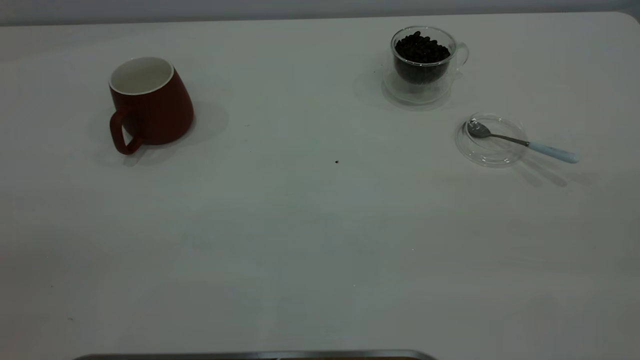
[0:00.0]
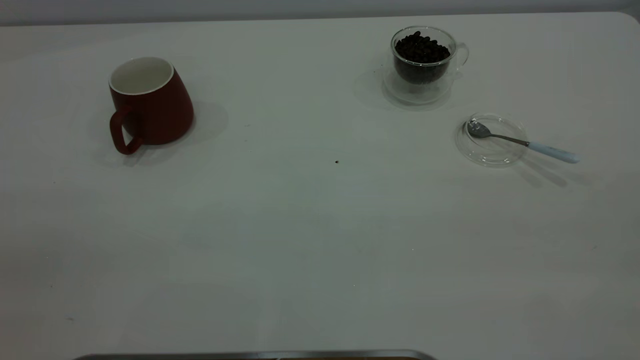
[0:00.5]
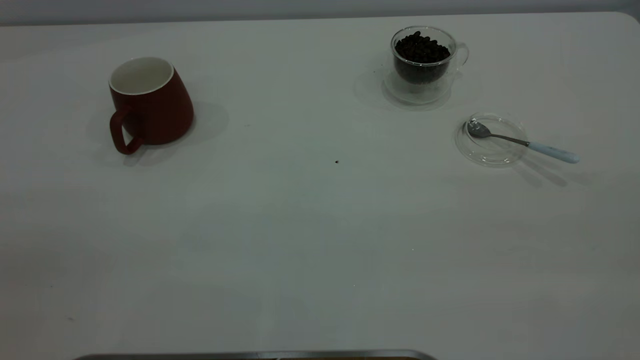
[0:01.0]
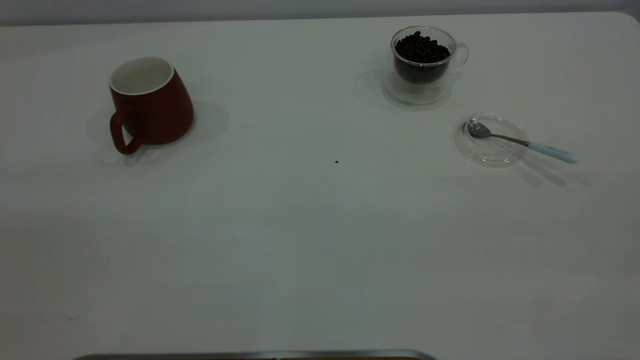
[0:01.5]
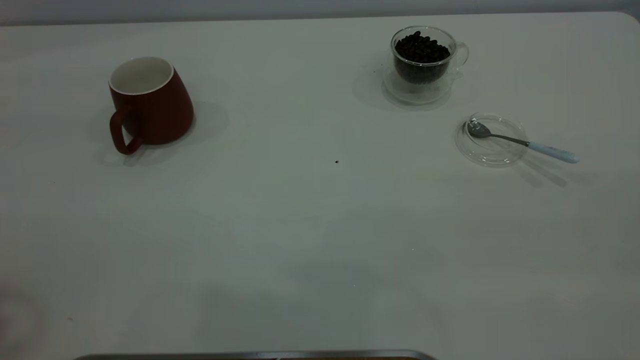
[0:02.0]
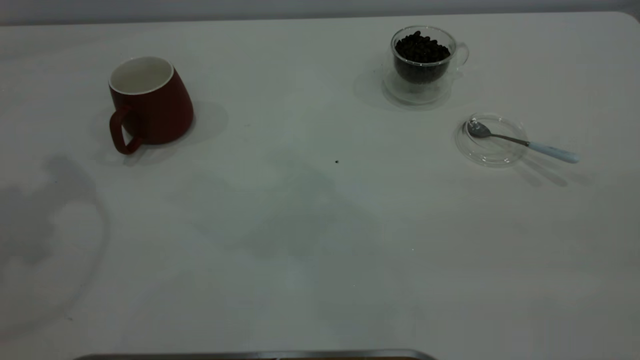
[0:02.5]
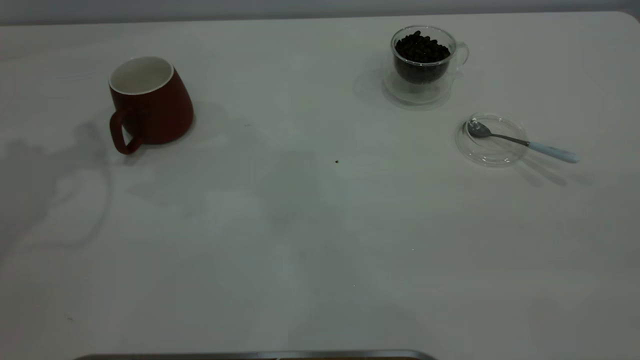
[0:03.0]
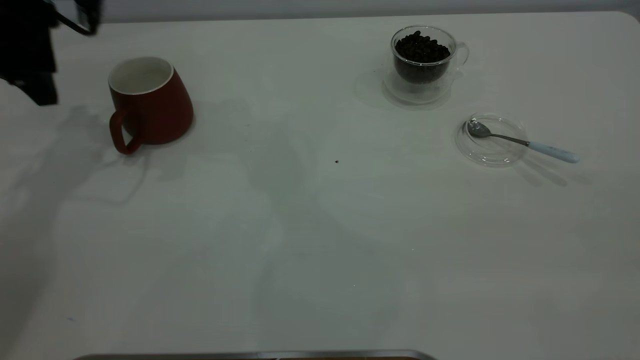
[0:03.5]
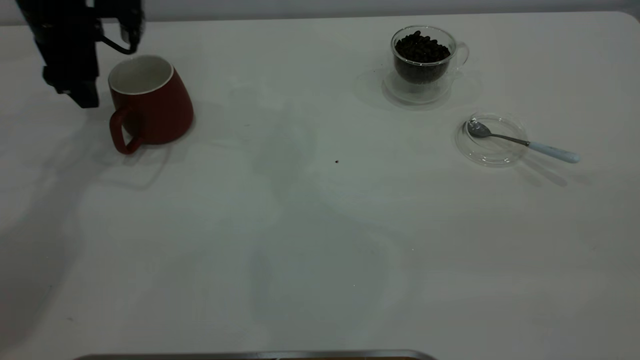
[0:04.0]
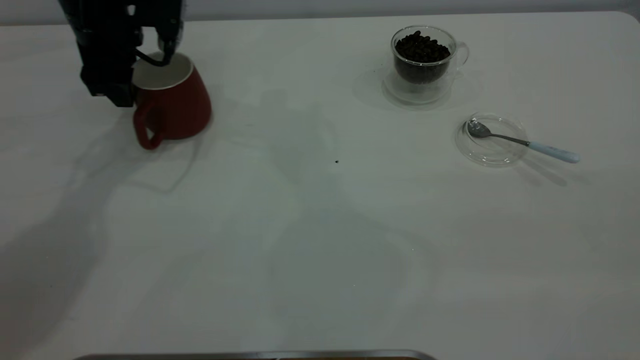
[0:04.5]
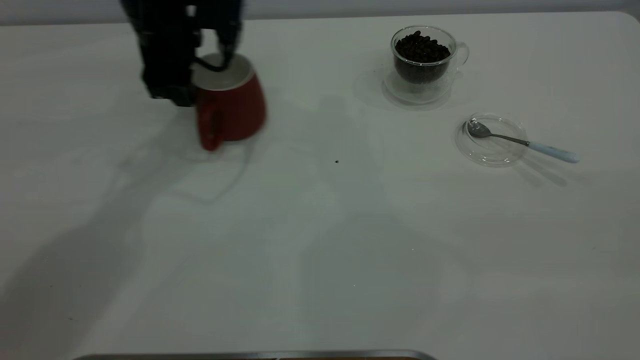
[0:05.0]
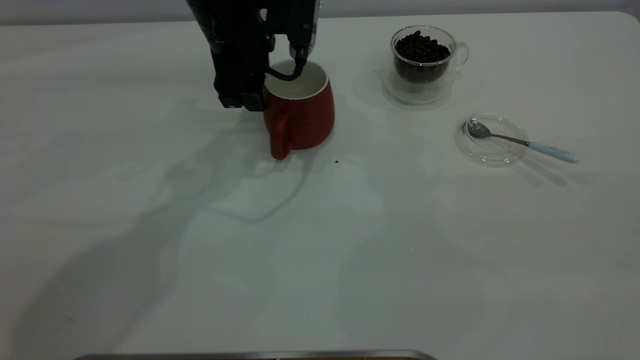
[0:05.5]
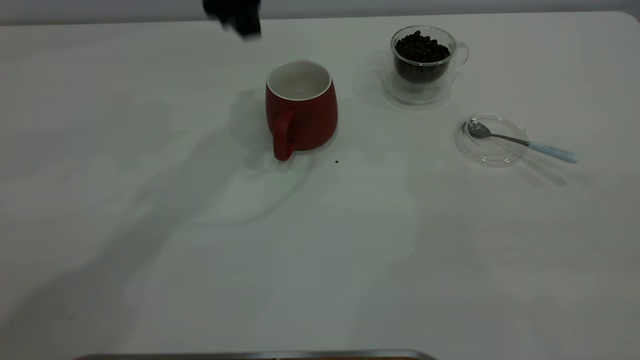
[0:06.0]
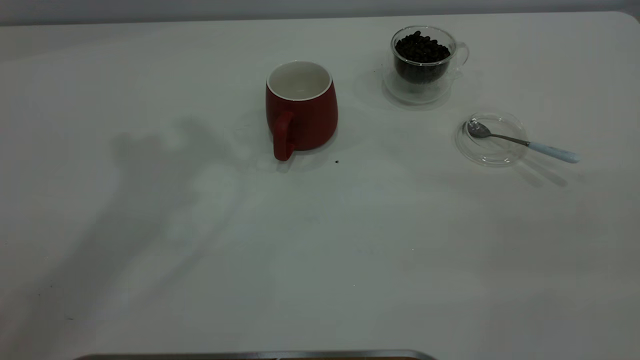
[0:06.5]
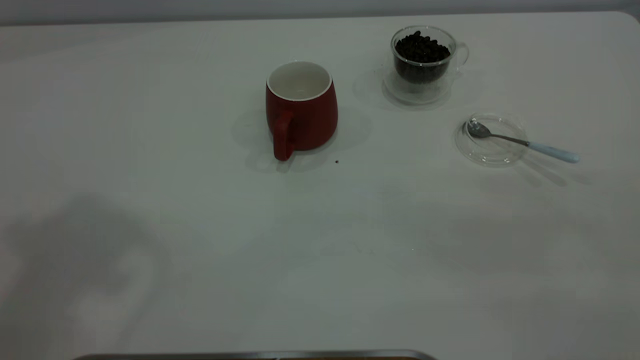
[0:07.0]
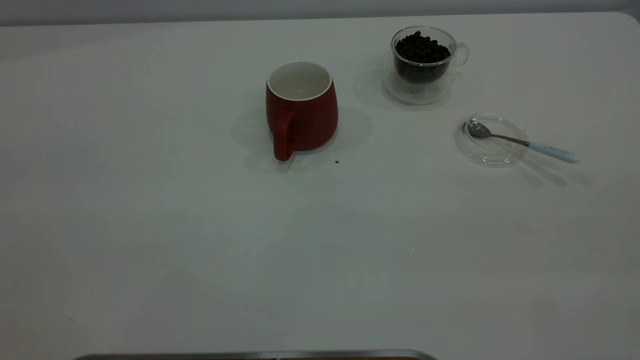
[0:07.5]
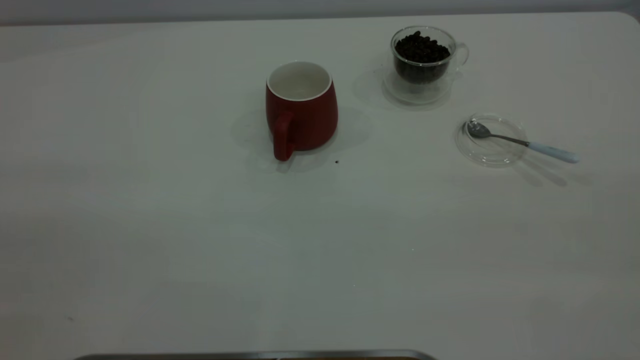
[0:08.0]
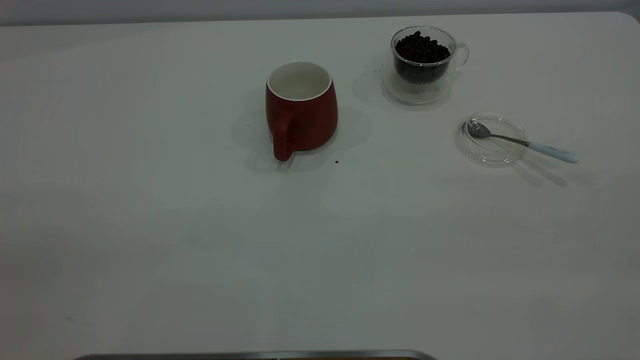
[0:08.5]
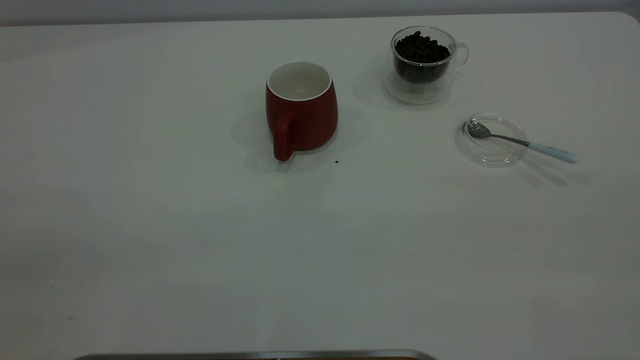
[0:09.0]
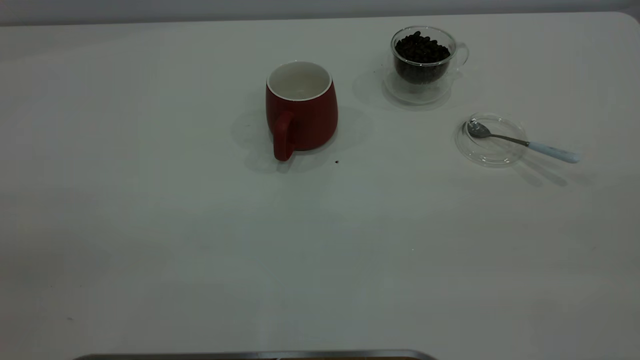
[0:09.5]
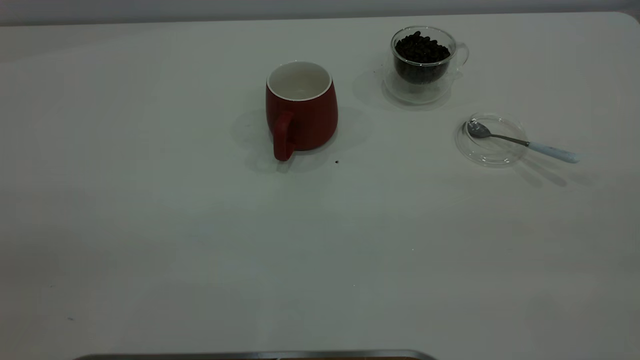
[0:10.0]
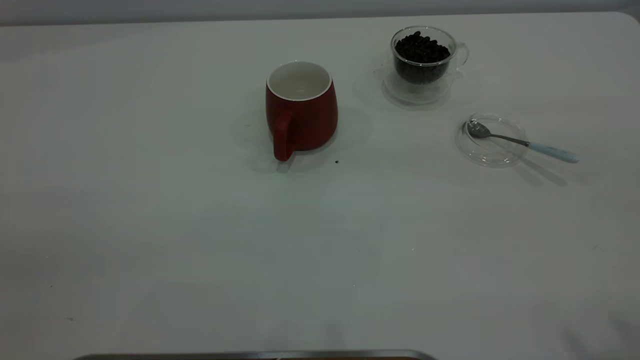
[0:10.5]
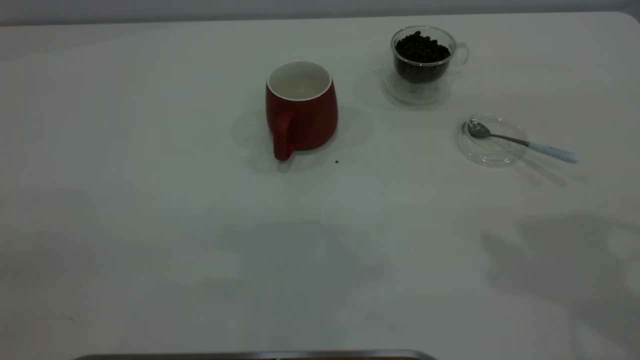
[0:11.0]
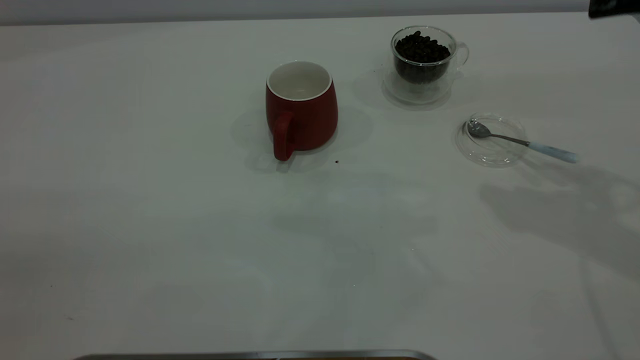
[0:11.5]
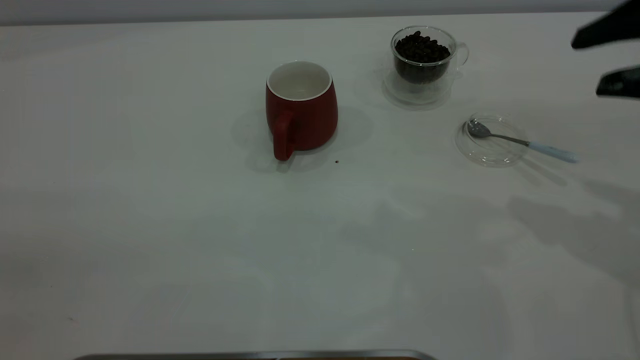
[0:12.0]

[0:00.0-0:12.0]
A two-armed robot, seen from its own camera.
Task of the whole recording: the left gripper place the red cup in the center of the table, the right gripper take the blue spoon from the cup lid and scoop out the coffee beans from the coffee cup and put them into the red cup, the right gripper put the spoon back into the cup lid.
Step, 0:00.0 to 0:05.5: Move the cup to the center of view.
0:02.0 to 0:04.0: The left gripper goes about 40 cm forward and downward.
0:04.0 to 0:06.0: The left gripper shifts some 20 cm to the right and upward.
0:06.0 to 0:08.0: The left gripper is displaced backward and to the left by about 50 cm.
0:10.0 to 0:12.0: The right gripper is displaced forward and downward by approximately 30 cm.

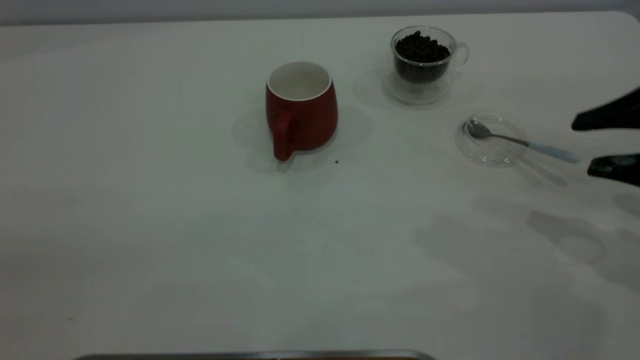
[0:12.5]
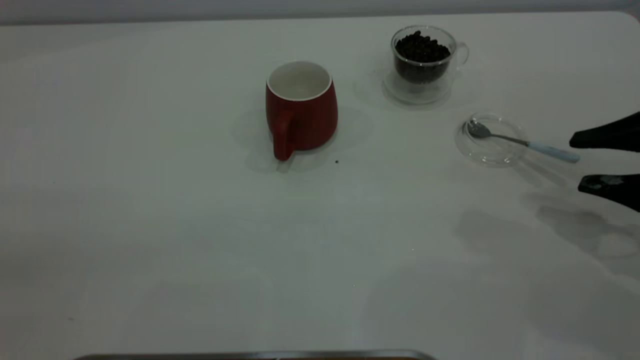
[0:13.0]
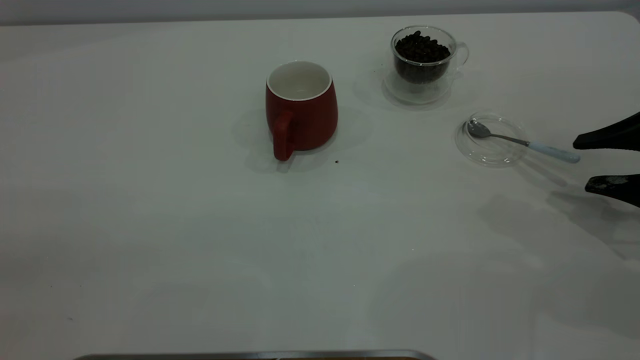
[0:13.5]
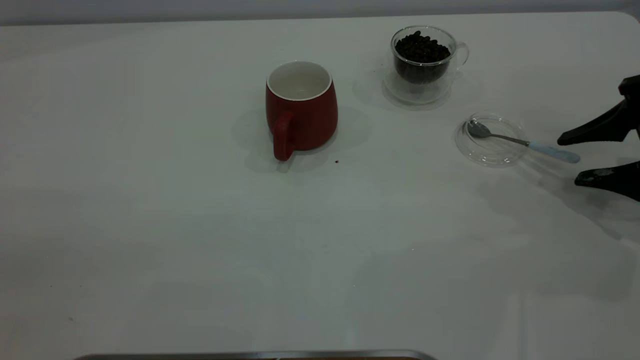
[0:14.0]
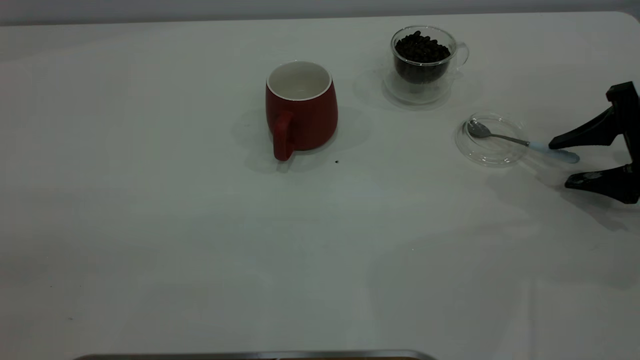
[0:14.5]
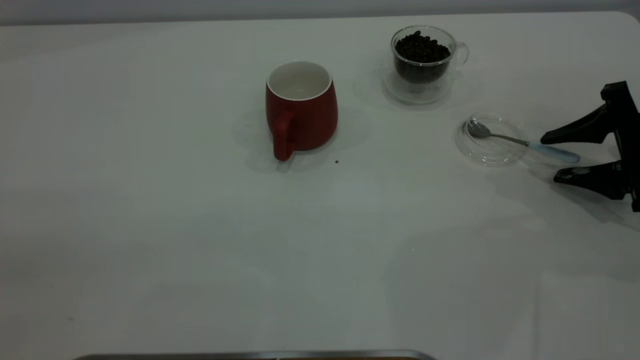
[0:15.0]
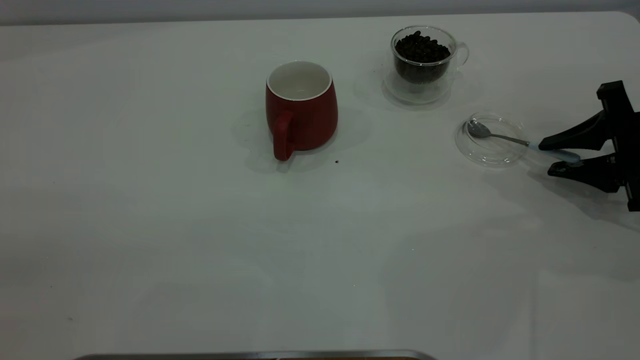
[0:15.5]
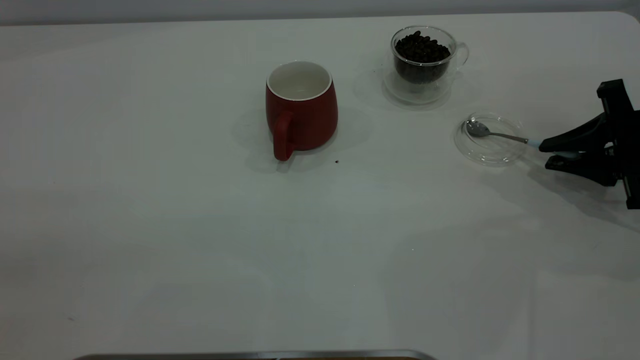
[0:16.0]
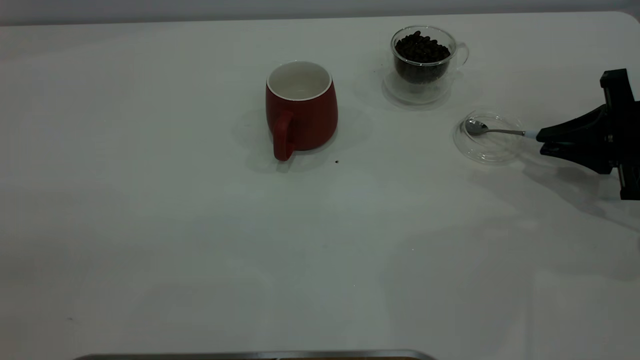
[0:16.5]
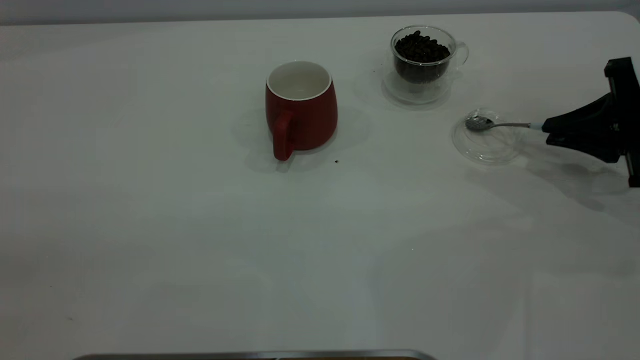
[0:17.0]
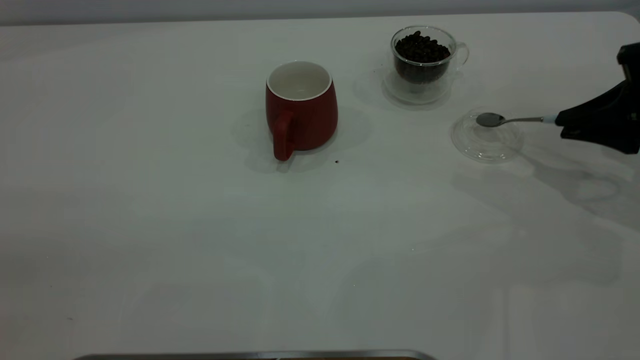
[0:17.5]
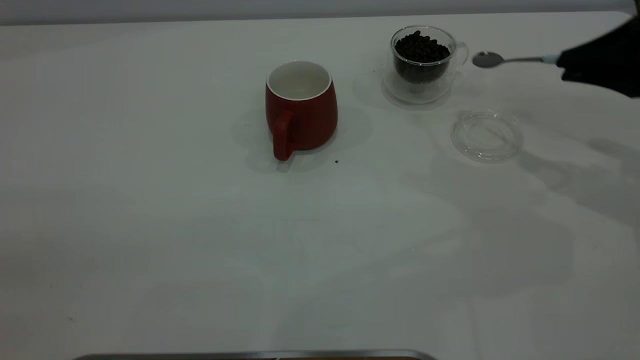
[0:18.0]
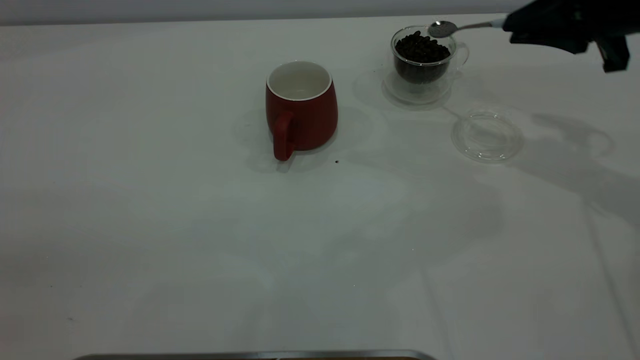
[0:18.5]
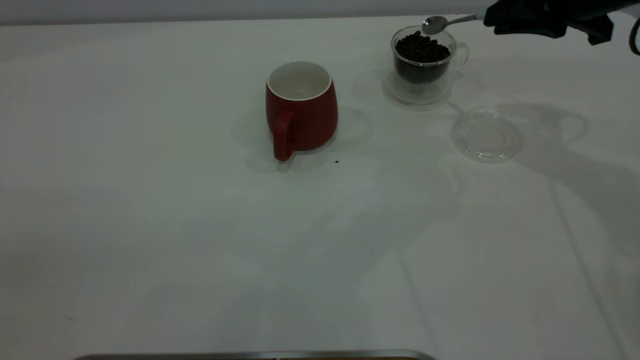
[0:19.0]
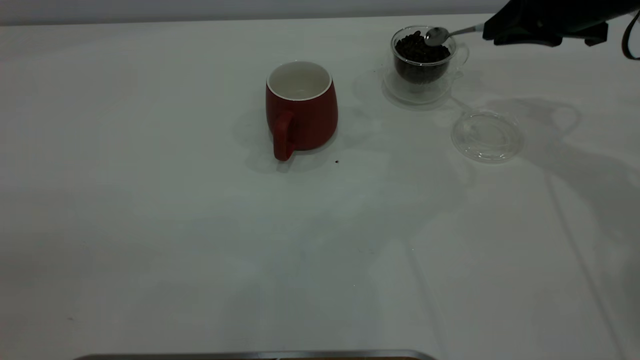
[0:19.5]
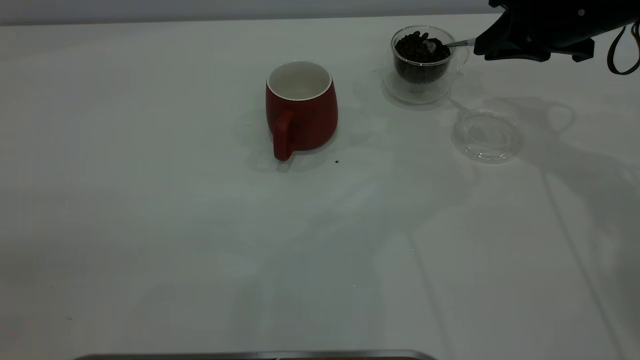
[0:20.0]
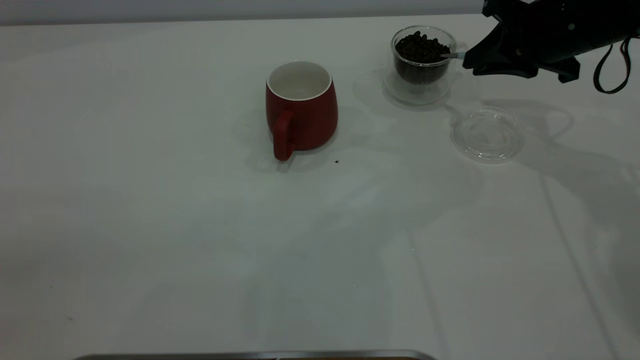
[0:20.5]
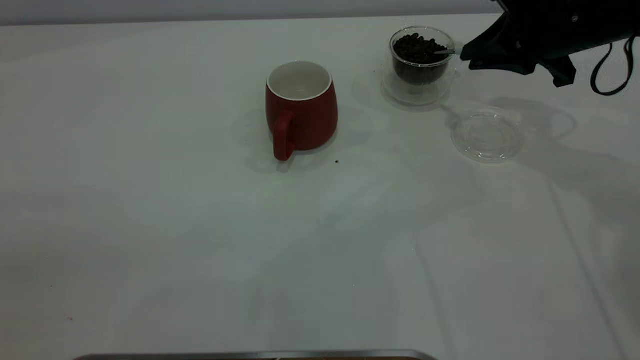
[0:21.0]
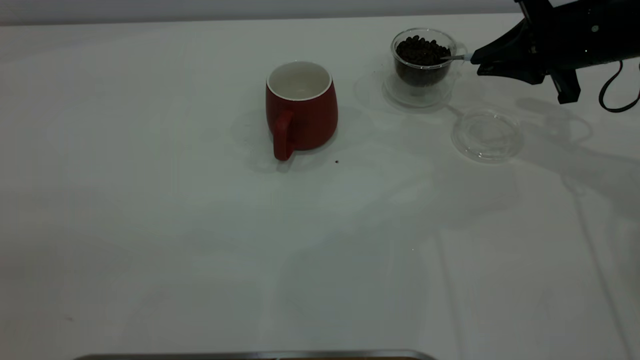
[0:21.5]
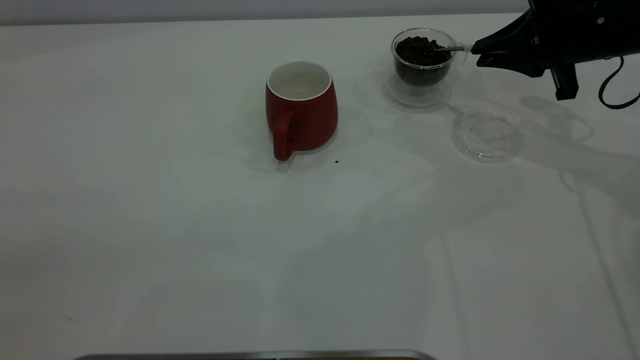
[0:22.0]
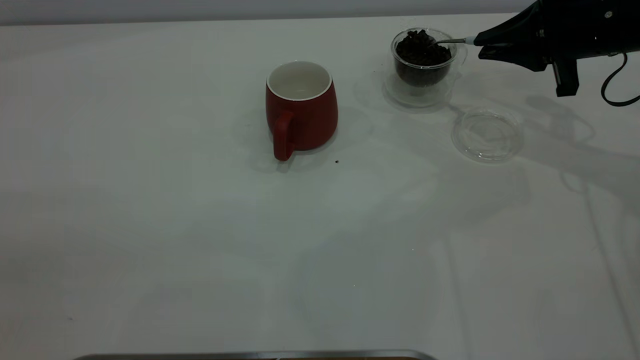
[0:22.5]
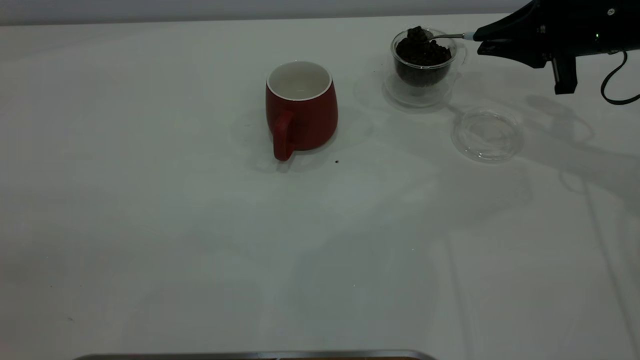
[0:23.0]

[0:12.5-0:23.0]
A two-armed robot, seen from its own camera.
Task of the whole recording: the left gripper place the red cup in the center of the table, the right gripper take the blue spoon from the cup lid and scoop out the coffee beans from the coffee cup and put them into the red cup, the right gripper put the spoon back into the cup lid.
Step, 0:12.5 to 0:17.5: Pick up the spoon.
0:12.5 to 0:14.5: The right gripper shifts about 10 cm downward and forward.
0:14.5 to 0:16.5: The right gripper closes up.
0:16.5 to 0:19.0: The right gripper heads upward, forward and to the left, covering about 15 cm.
0:19.0 to 0:21.0: The right gripper shifts roughly 5 cm downward.
0:21.0 to 0:23.0: The grippers move only a little.
